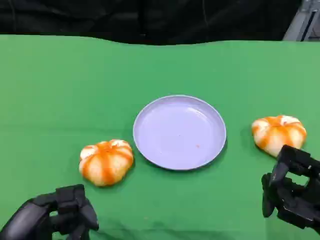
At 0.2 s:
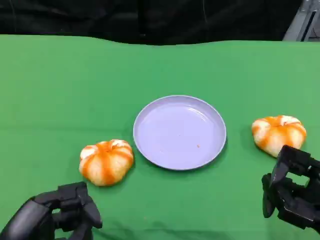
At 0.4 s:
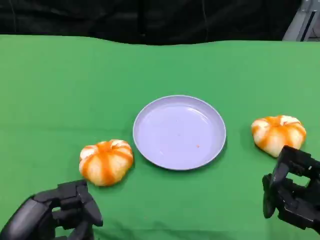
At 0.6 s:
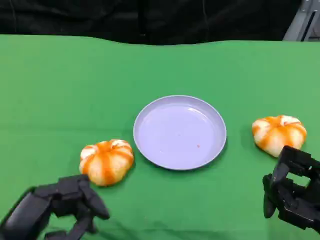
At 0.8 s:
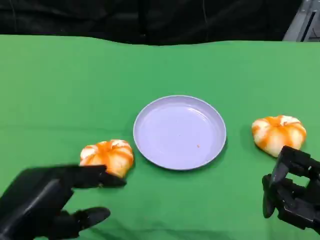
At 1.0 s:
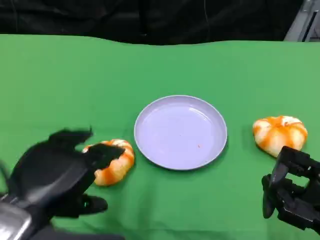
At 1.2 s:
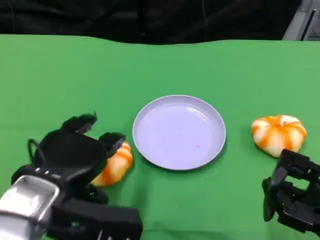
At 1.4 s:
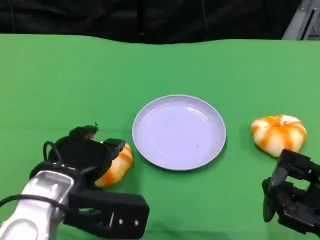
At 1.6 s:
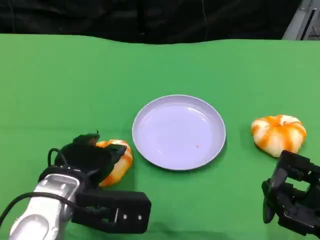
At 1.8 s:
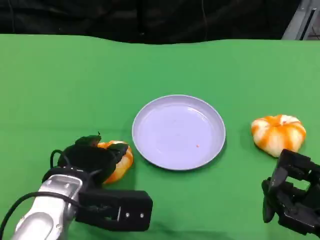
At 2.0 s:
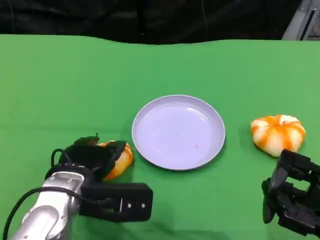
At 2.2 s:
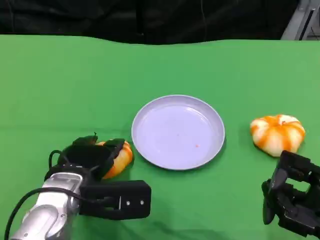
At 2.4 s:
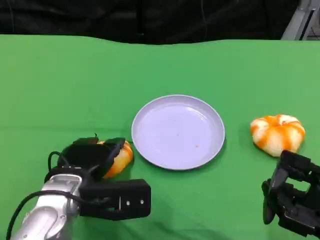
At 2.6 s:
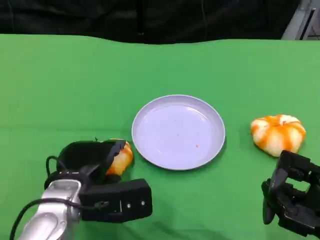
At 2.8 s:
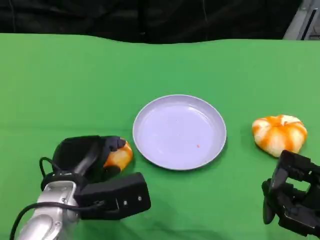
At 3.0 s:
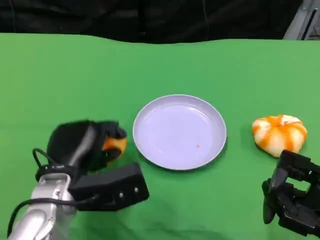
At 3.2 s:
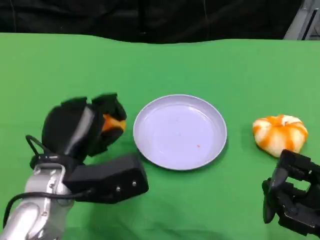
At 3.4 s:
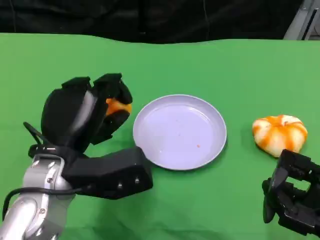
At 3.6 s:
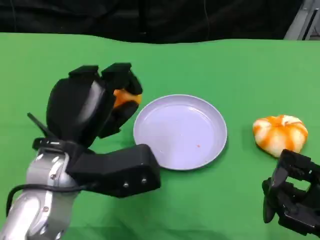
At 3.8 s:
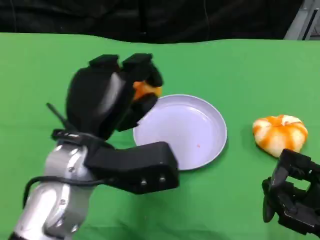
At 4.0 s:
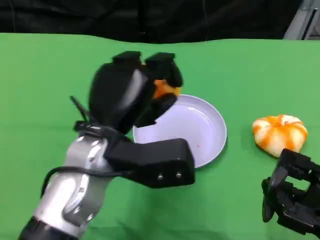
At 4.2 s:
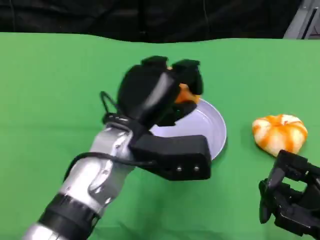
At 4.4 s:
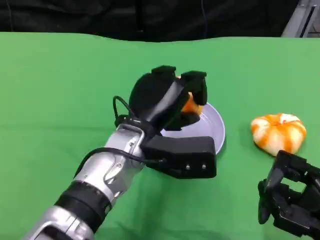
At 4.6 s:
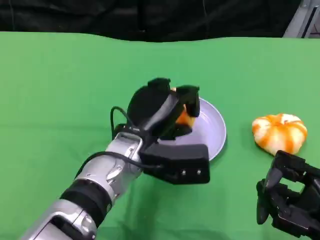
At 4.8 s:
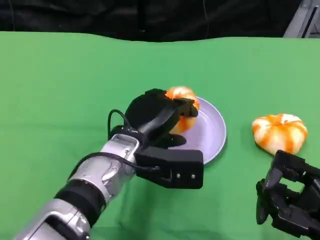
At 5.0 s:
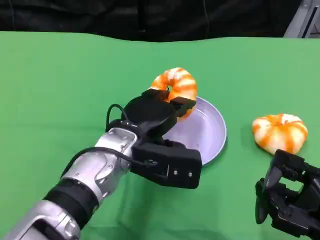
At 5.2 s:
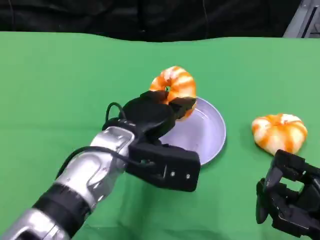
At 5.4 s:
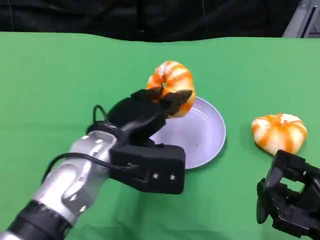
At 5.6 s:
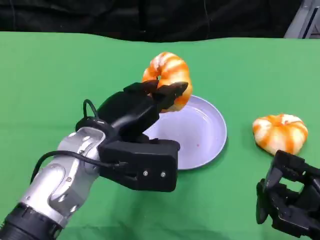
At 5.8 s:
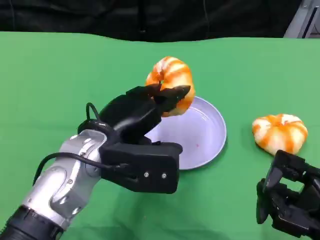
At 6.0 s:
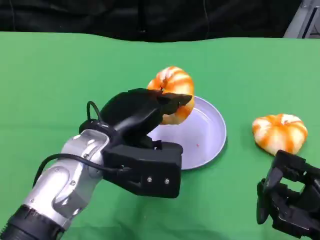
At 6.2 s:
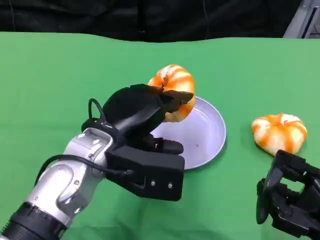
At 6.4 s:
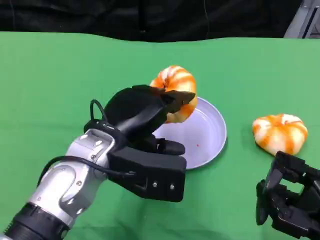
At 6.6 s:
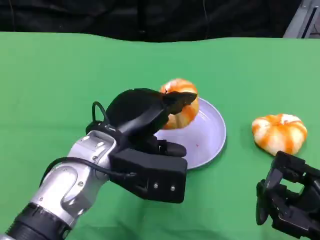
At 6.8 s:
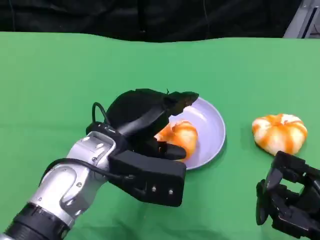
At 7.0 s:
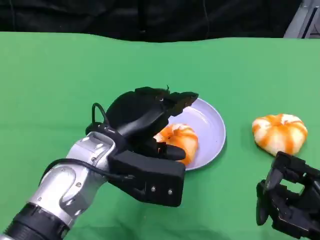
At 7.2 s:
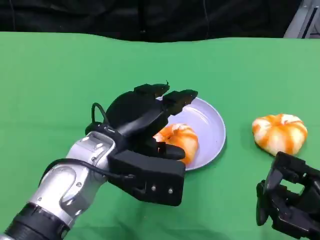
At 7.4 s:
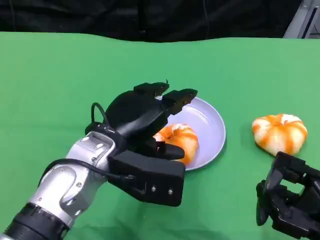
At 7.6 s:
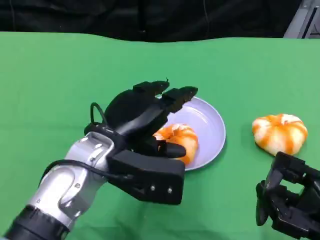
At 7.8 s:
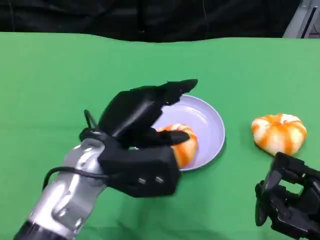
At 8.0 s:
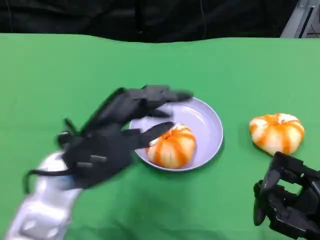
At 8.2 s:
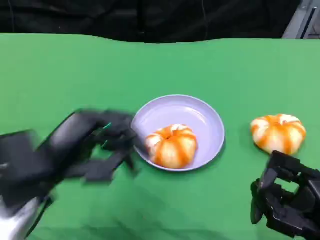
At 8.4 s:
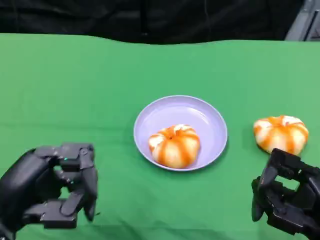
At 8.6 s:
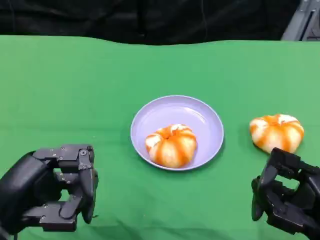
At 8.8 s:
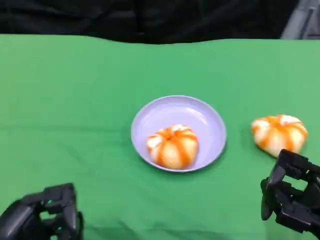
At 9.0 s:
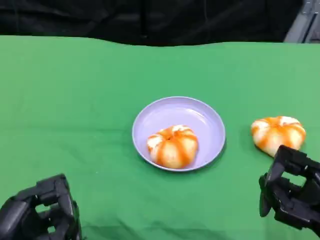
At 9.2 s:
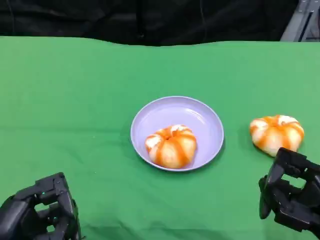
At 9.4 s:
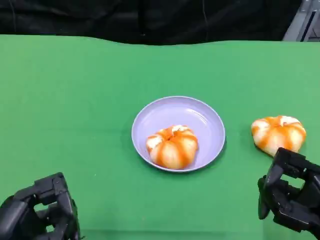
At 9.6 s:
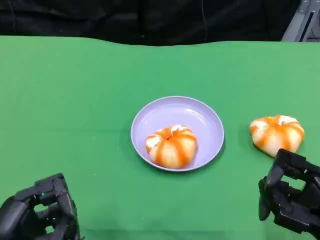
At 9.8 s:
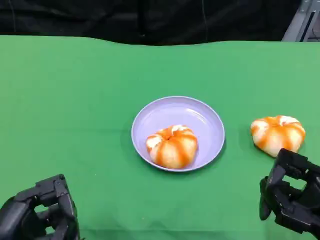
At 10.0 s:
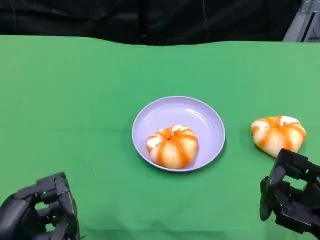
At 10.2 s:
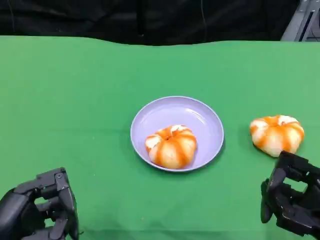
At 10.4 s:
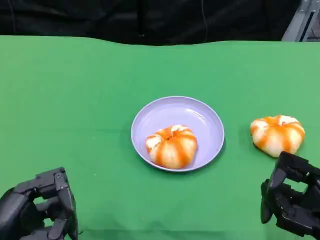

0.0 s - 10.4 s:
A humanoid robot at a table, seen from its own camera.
Task of the whole recording: Grasp the bread from the table and place it into the plate.
0.0 s - 1.4 s: The left hand heads forward and to the right, covering approximately 15 cm.
3.0 s - 4.4 s: The left hand shifts about 10 cm to the right.
4.4 s - 6.0 s: The left hand is displaced to the left by about 5 cm.
6.0 s - 7.4 s: The hands stay close to where they were, moving slightly.
7.4 s - 9.0 s: The left hand travels backward and to the left by roughly 20 cm.
9.0 s - 10.4 s: Neither hand changes place.

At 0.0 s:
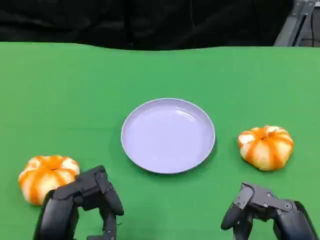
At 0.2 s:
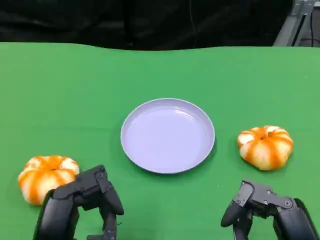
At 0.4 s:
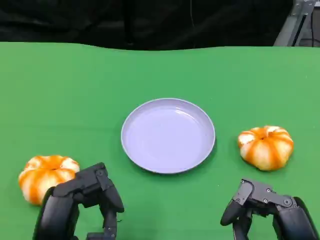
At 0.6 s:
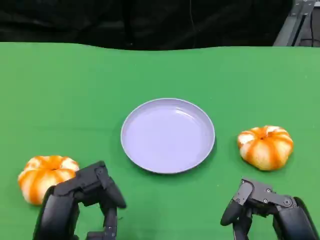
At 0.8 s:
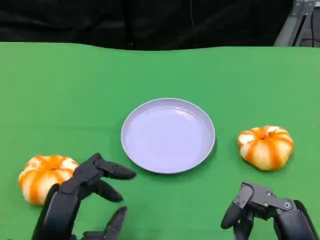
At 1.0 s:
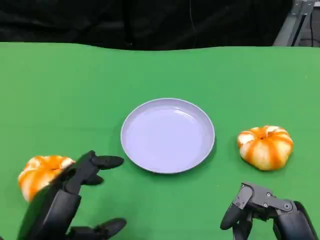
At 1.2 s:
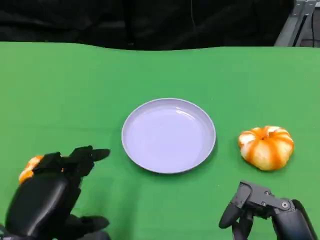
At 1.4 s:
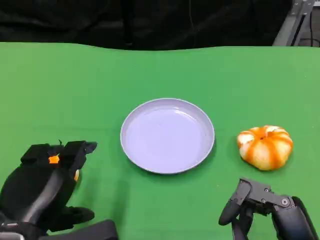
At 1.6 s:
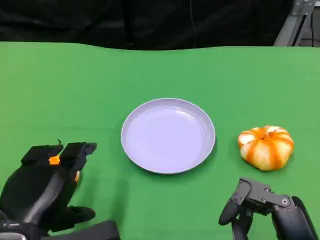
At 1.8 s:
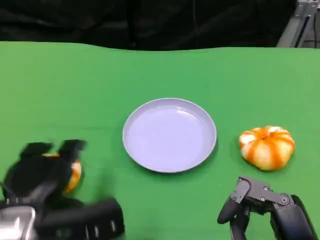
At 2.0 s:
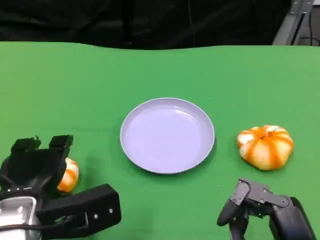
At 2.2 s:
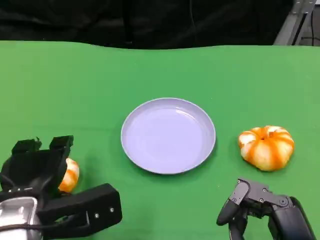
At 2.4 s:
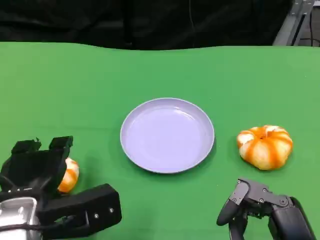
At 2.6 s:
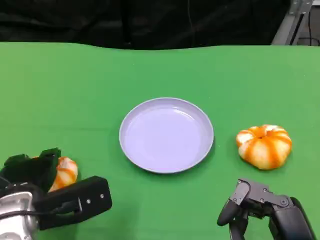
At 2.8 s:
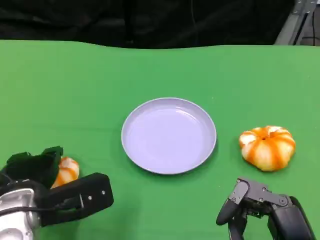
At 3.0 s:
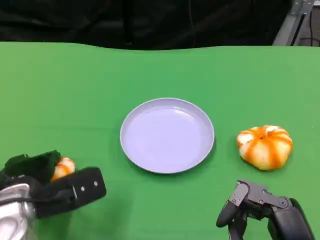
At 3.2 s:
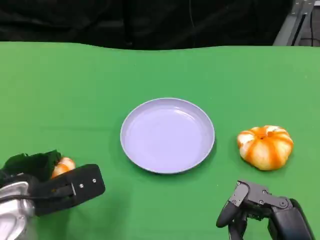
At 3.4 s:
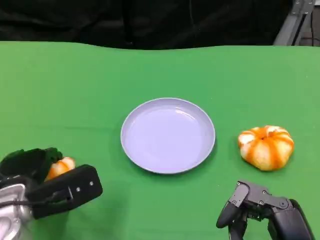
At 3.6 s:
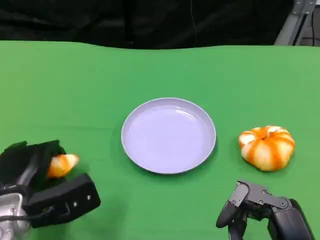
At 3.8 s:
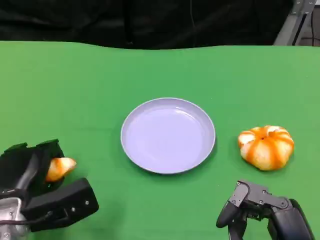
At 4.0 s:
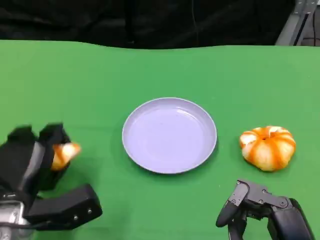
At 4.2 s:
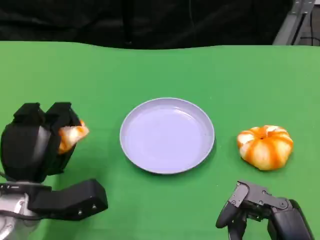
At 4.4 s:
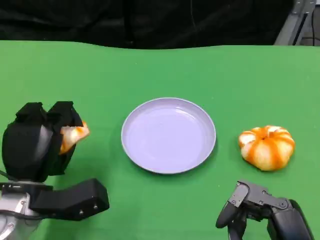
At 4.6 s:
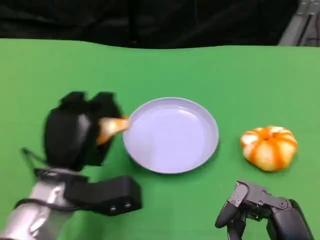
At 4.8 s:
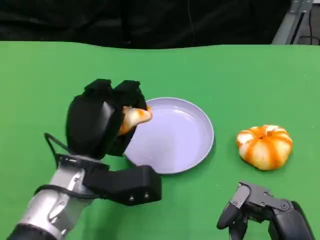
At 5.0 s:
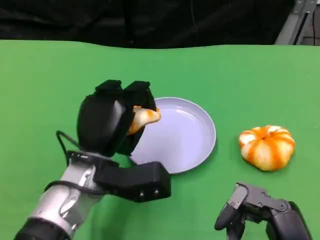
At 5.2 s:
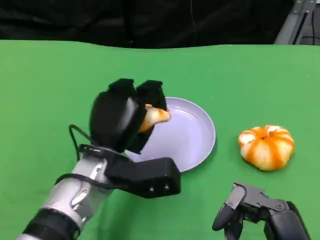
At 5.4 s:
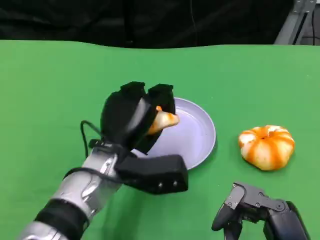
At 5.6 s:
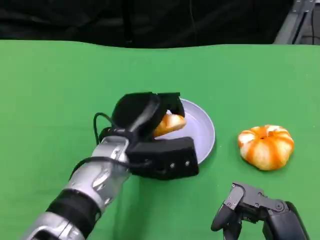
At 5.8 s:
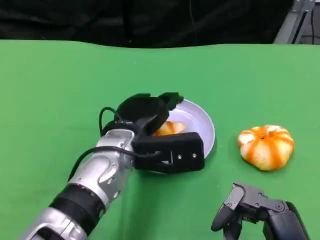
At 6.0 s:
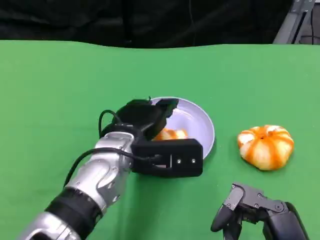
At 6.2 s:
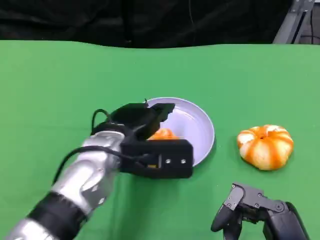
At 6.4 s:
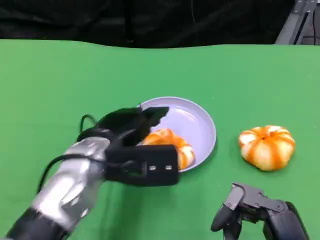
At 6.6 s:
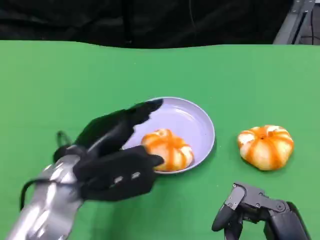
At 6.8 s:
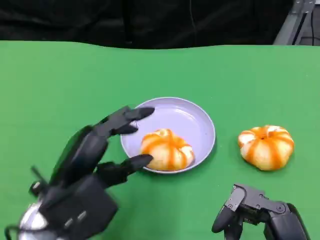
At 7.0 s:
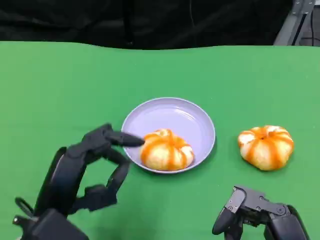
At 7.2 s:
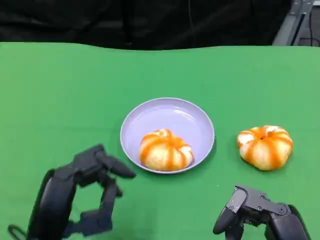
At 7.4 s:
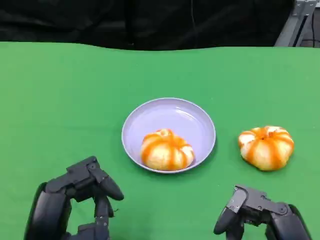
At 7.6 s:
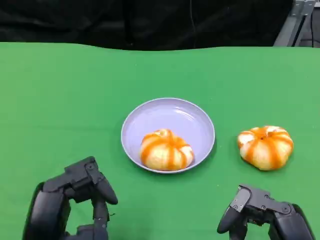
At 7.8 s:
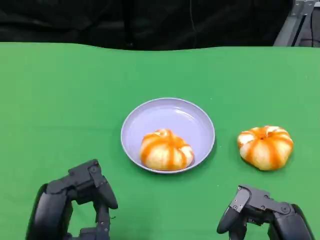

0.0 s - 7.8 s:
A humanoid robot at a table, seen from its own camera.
Task of the whole recording: Grasp the bread from the table and place it into the plate.
0.0 s - 1.6 s: The left hand ends up some 5 cm from where it was.
1.6 s - 3.2 s: The left hand is displaced forward and downward by some 10 cm.
3.2 s - 4.6 s: The left hand is displaced to the right by about 5 cm.
4.6 s - 6.2 s: The left hand goes about 5 cm to the right.
6.2 s - 7.8 s: The left hand shifts roughly 20 cm backward and to the left.
